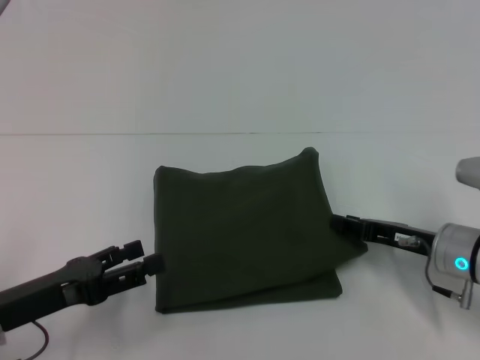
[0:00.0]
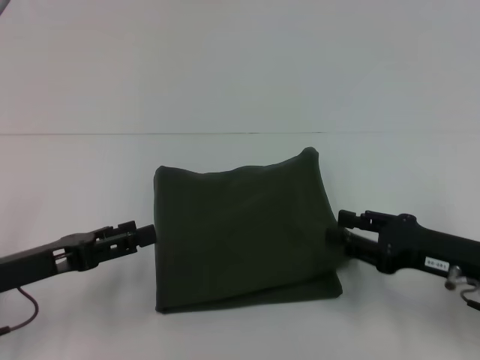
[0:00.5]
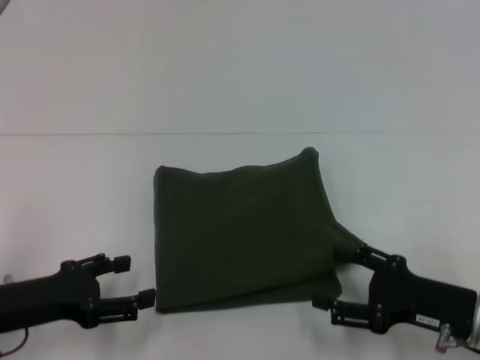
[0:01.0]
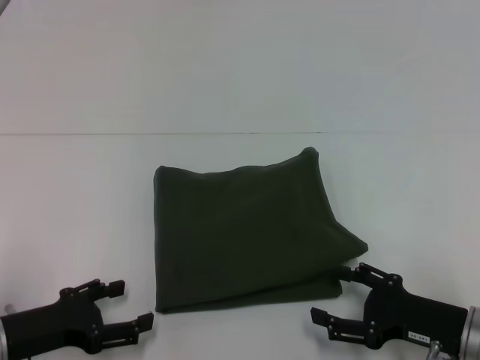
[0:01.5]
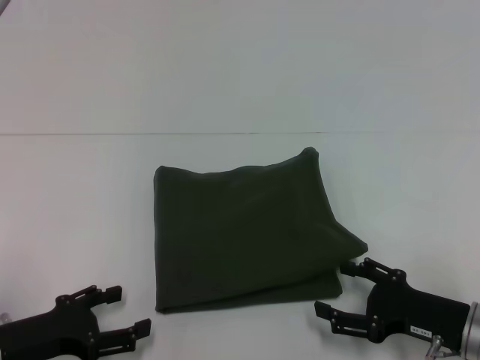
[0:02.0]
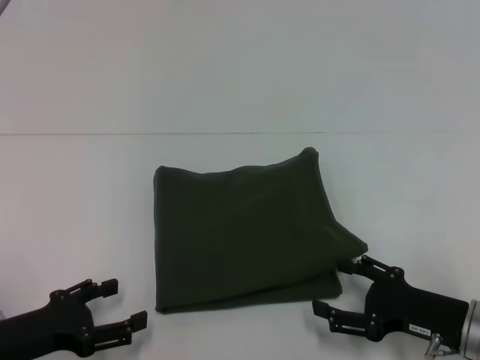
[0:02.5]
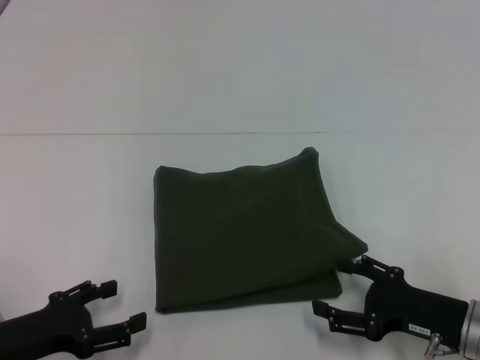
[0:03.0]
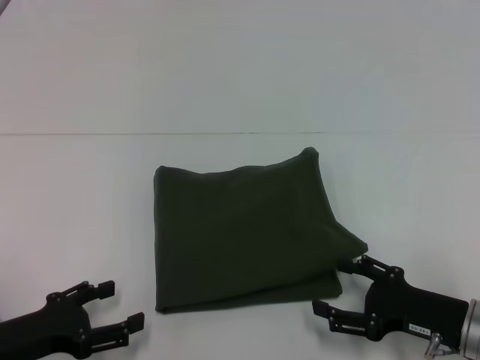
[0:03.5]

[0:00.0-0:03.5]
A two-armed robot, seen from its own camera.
0:00.0 to 0:02.0: The right gripper moves backward, about 10 cm, and opens.
0:02.0 to 0:03.5: Both grippers stay about where they are.

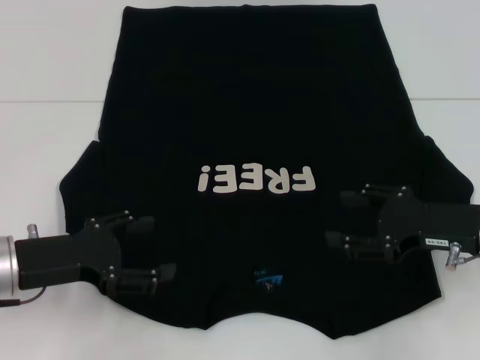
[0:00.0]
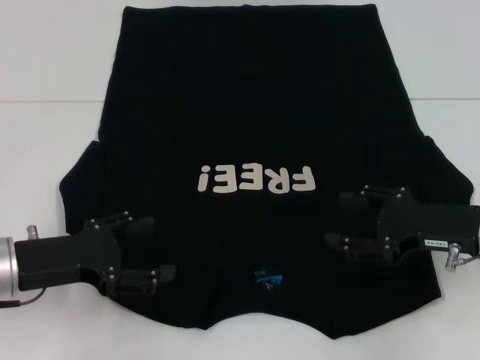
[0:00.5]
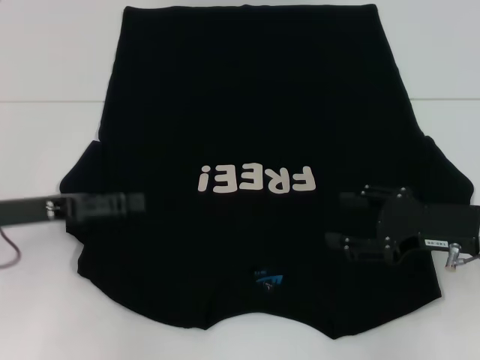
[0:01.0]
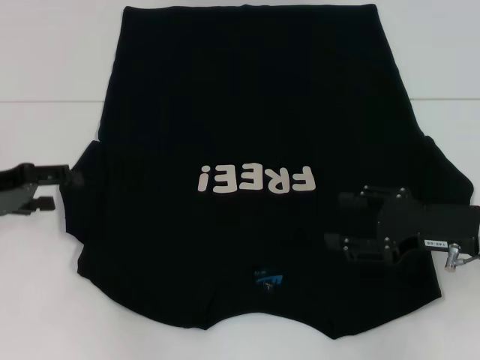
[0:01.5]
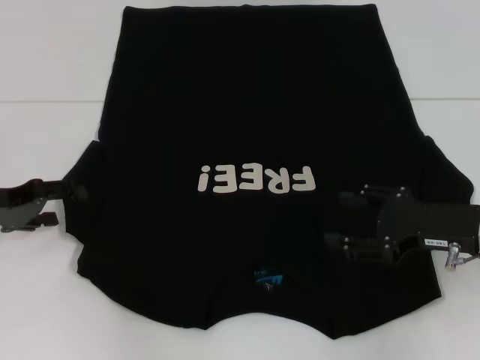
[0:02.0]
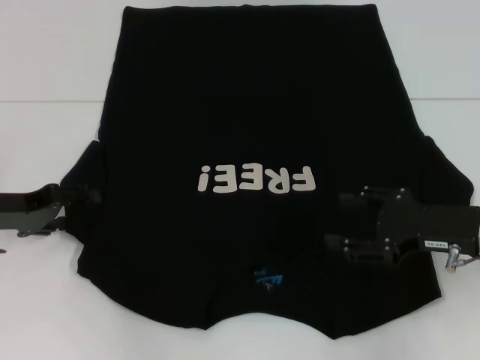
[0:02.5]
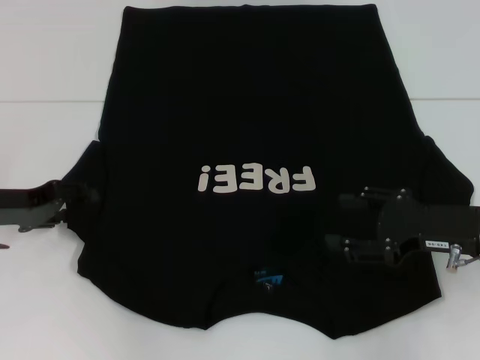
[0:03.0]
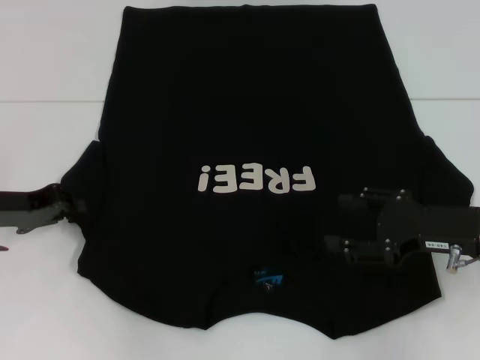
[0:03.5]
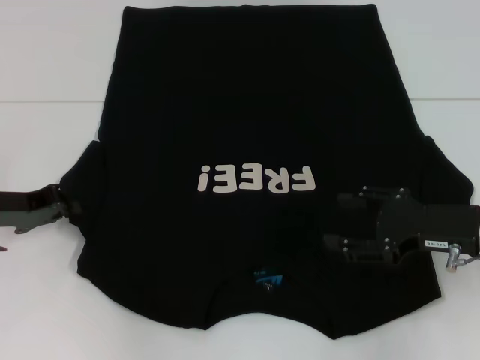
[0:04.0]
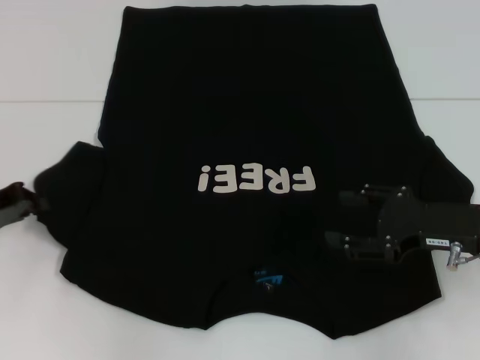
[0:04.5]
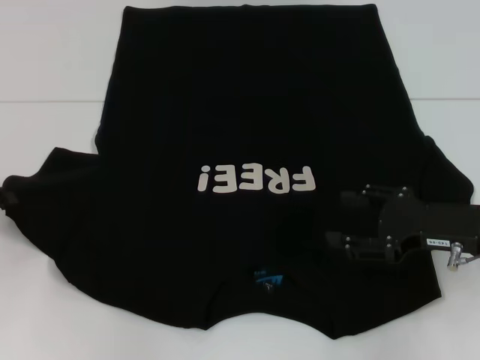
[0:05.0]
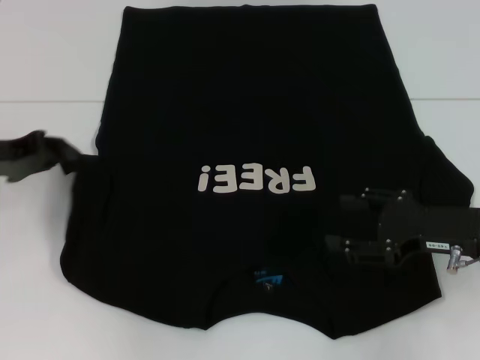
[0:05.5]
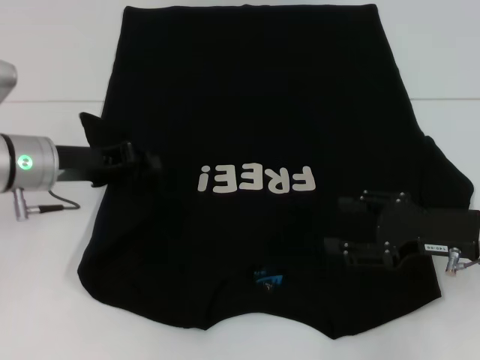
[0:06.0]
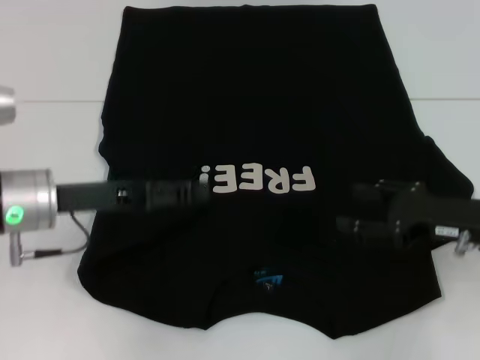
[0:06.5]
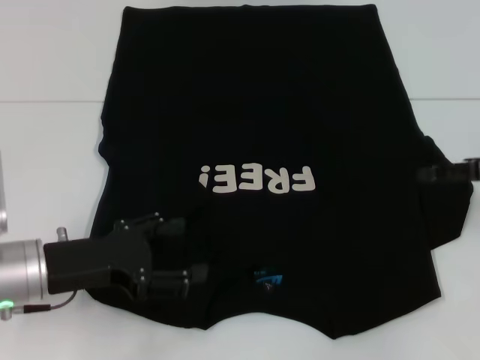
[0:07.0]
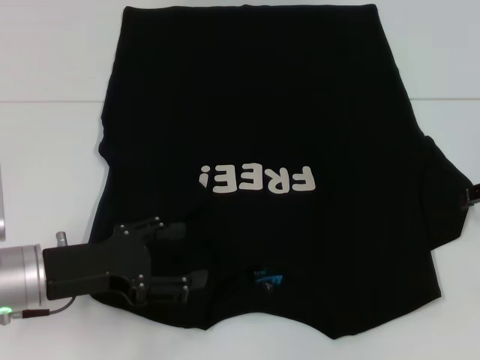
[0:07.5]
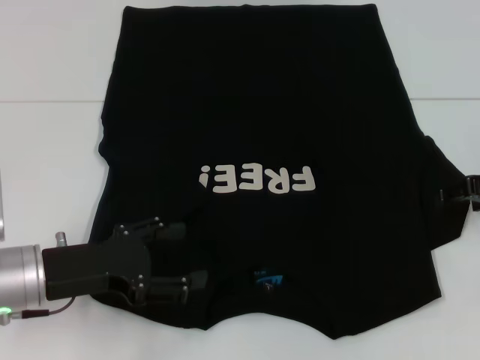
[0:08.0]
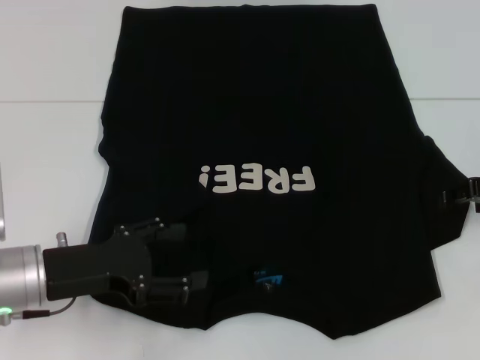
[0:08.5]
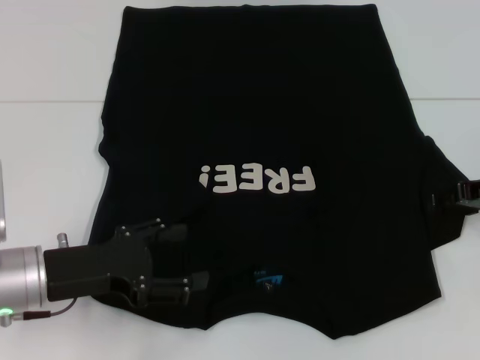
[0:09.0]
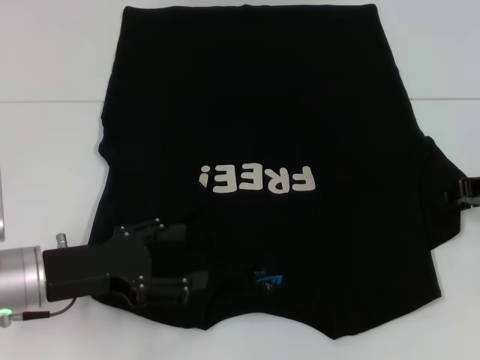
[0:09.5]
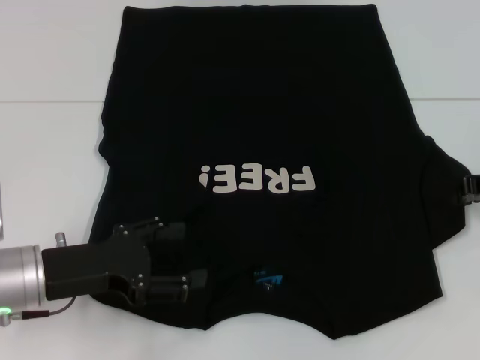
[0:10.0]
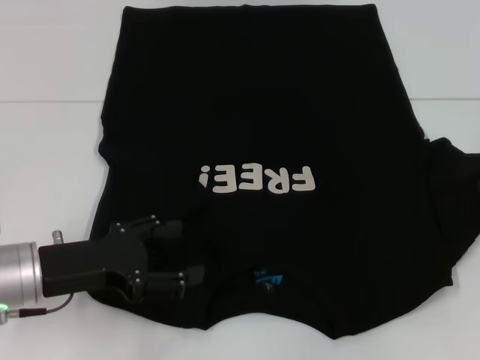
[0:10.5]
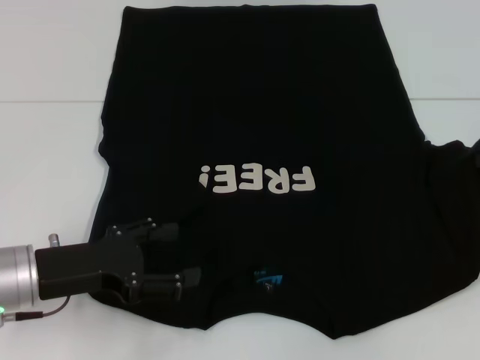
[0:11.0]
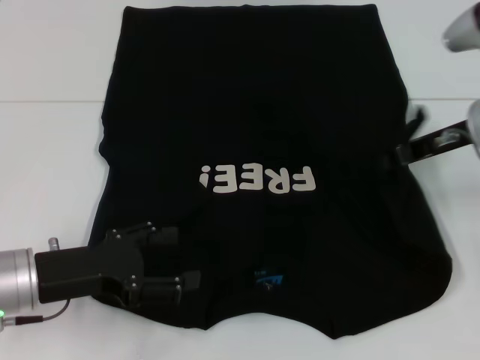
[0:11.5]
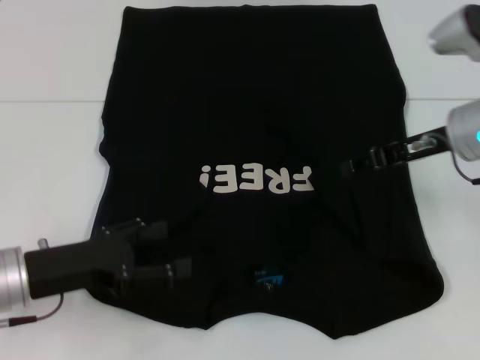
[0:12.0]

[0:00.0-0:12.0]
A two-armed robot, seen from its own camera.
Step, 0:00.0 to 0:06.0: Fold the bottom left sleeve with your left hand.
0:00.0 to 0:02.0: The left gripper shifts roughly 10 cm to the left and forward.
0:02.0 to 0:04.0: The left gripper closes up.
0:04.0 to 0:06.0: The left gripper moves to the right, roughly 10 cm.
0:06.0 to 0:08.0: The right gripper moves forward and to the right, approximately 10 cm; the left gripper goes some 10 cm backward, and opens.
0:10.0 to 0:12.0: The right gripper is displaced to the left by about 10 cm.

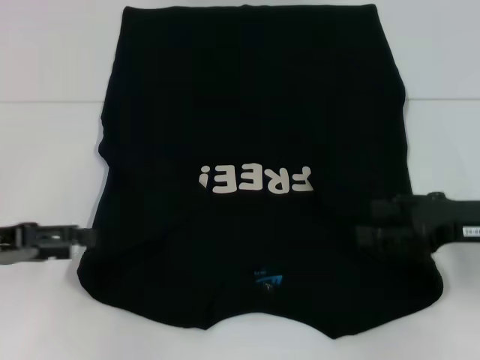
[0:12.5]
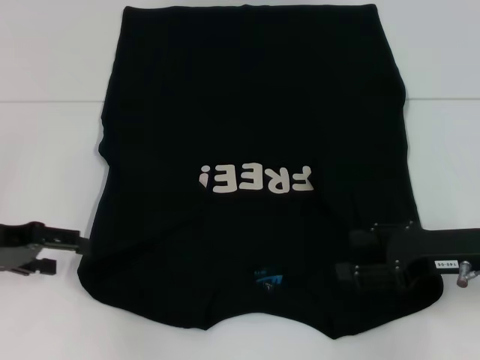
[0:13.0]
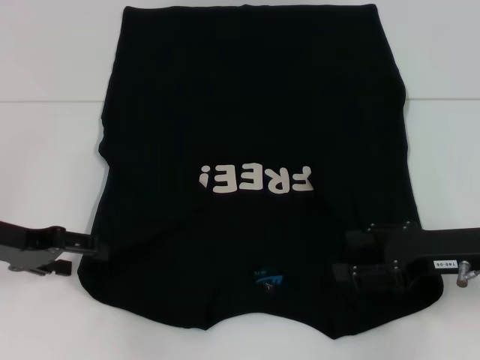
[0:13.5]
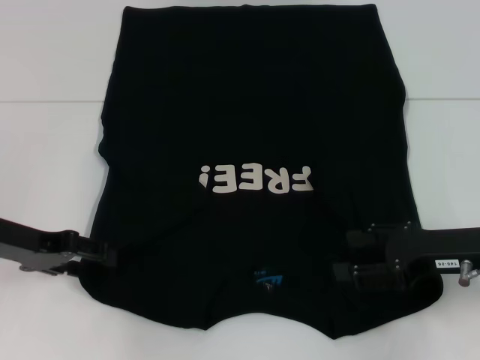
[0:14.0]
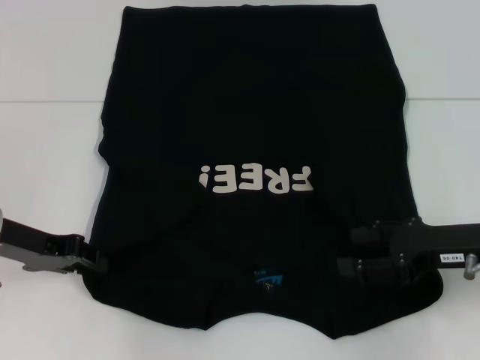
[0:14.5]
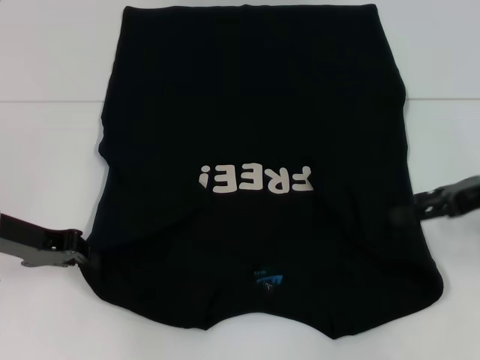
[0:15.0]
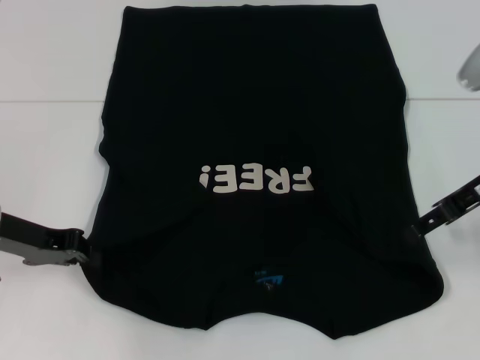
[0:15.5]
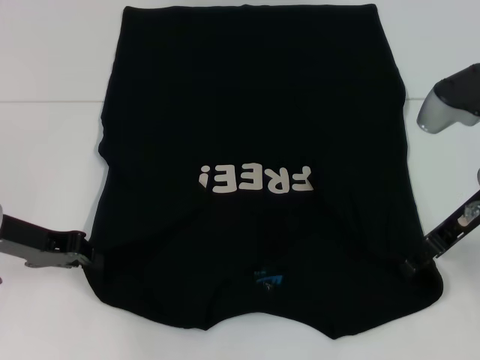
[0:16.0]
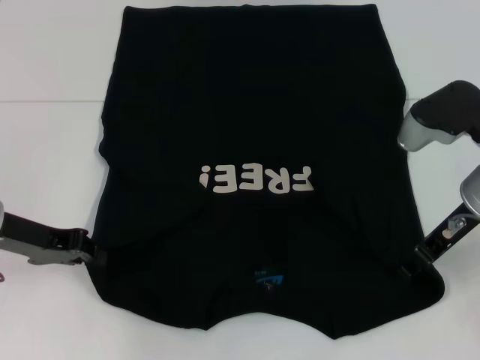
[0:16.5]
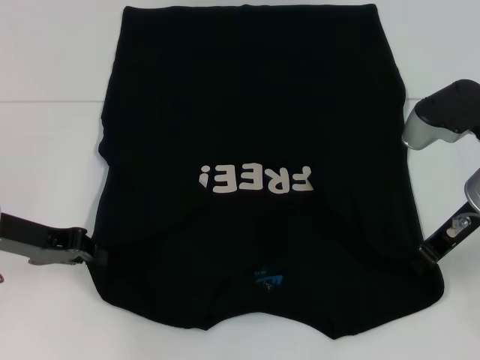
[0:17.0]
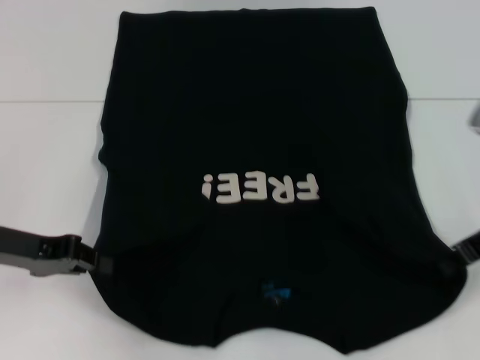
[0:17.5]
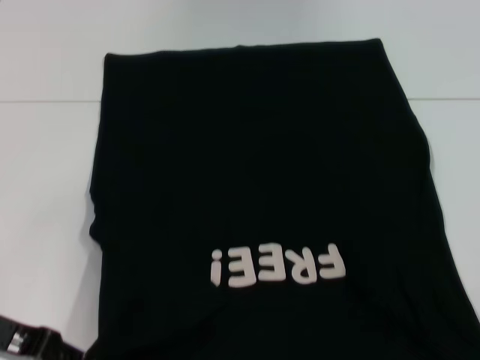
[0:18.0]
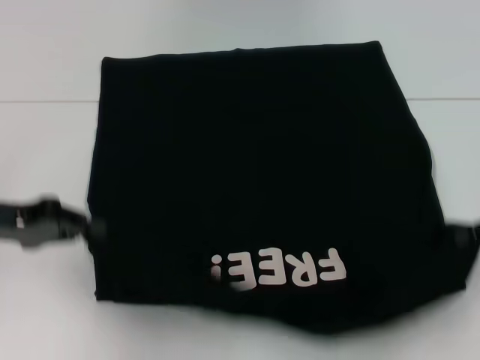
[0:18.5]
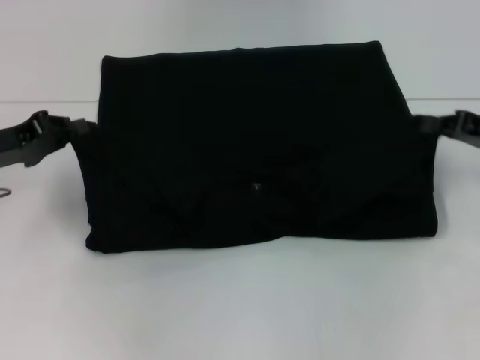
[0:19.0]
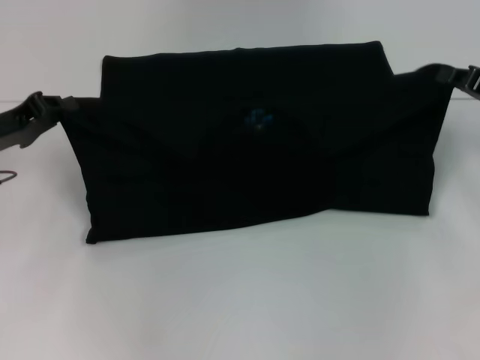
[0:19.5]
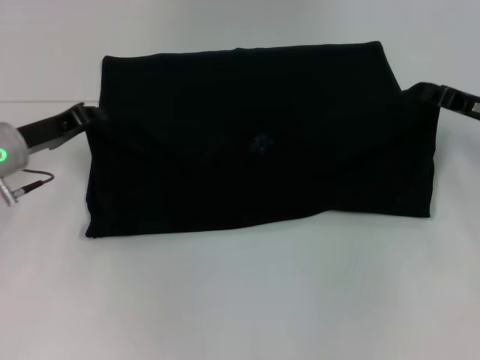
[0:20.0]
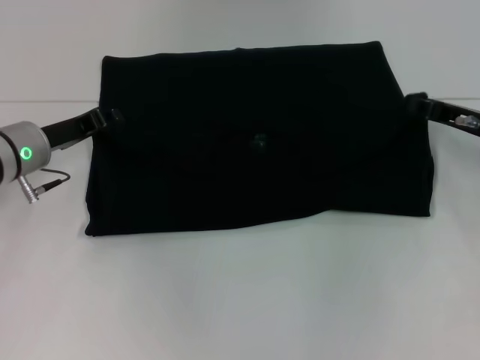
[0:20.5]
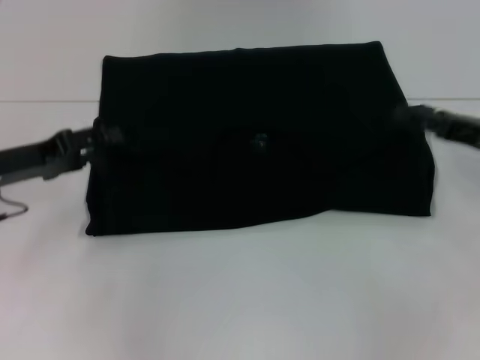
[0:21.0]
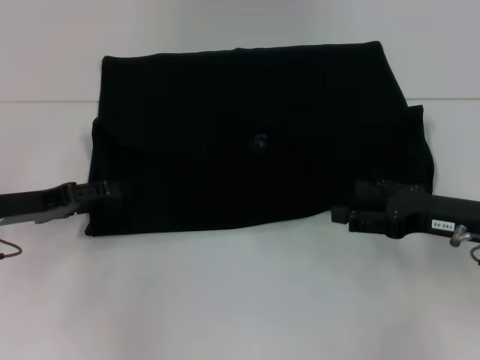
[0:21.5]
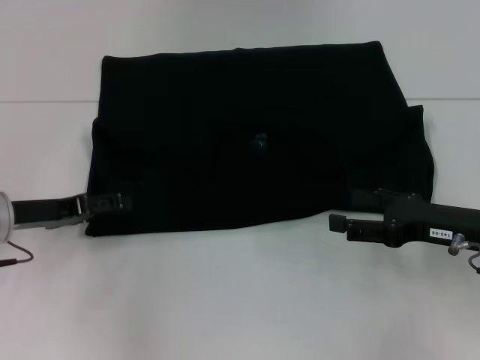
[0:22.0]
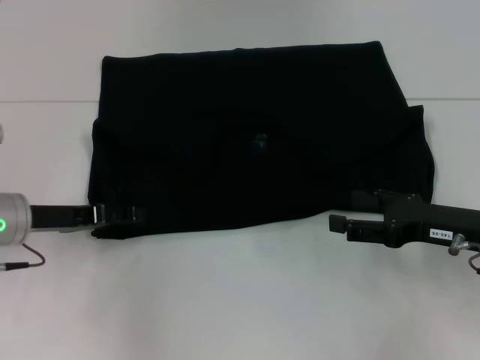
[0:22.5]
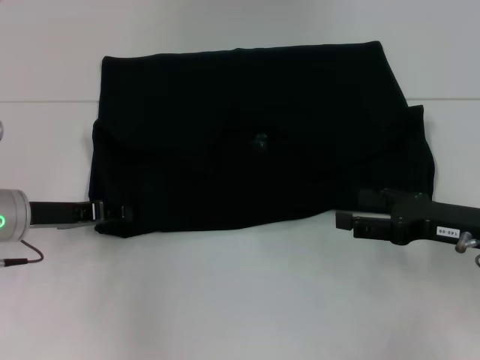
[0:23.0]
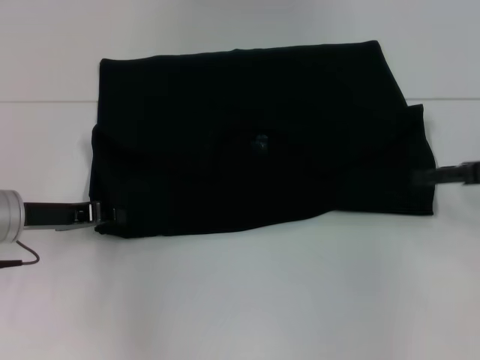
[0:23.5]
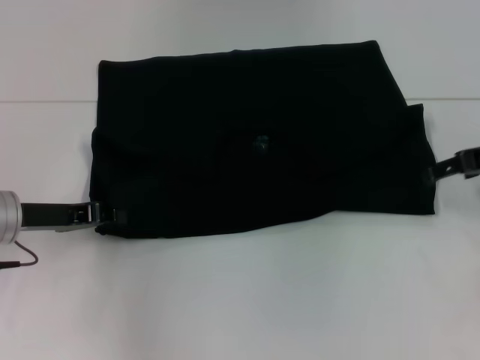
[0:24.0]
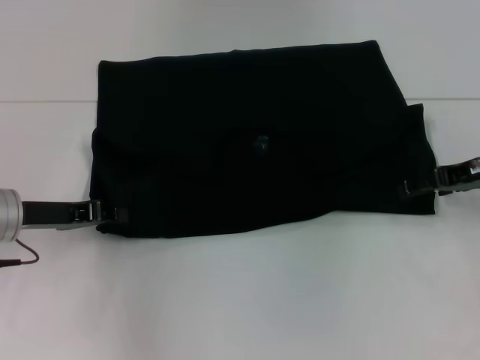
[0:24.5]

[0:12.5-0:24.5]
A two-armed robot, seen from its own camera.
Step, 0:12.5 to 0:14.5: Grab the bottom left corner with your left hand.
Step, 0:15.0 to 0:17.0: Grab the bottom right corner with your right hand.
Step, 0:17.5 to 0:20.5: Fold the clothes with your left hand.
Step, 0:17.5 to 0:20.5: Fold the clothes with your right hand.
0:12.5 to 0:14.5: The left gripper heads forward, covering roughly 5 cm, and closes up.
0:14.5 to 0:16.5: The right gripper travels forward by some 5 cm; the left gripper closes up.
0:16.5 to 0:18.5: The left gripper travels backward and back again, about 10 cm each way, while the right gripper goes some 15 cm to the right, and closes up.
0:18.5 to 0:20.5: The right gripper moves to the left and forward, roughly 10 cm. Meanwhile the left gripper heads forward and to the right, covering roughly 10 cm.
0:20.5 to 0:22.5: The left gripper shifts about 5 cm backward, and opens up. Meanwhile the right gripper goes roughly 10 cm backward, and opens its fingers.
0:22.5 to 0:24.5: The left gripper closes up. The right gripper travels forward and upward by about 10 cm.
